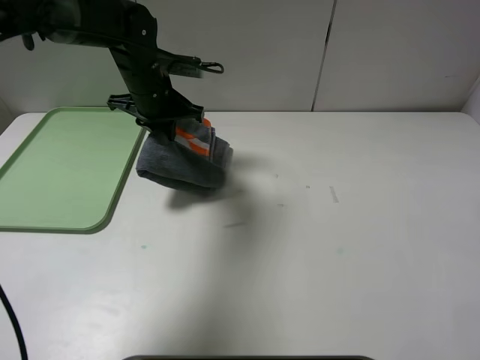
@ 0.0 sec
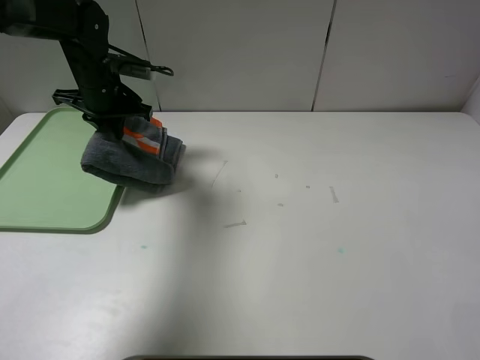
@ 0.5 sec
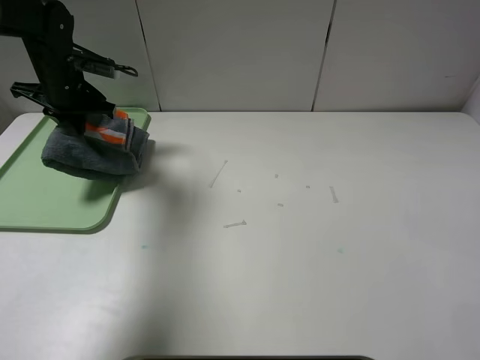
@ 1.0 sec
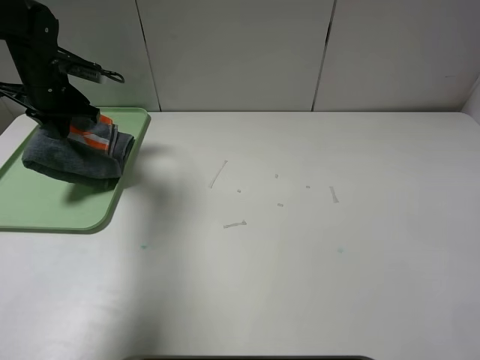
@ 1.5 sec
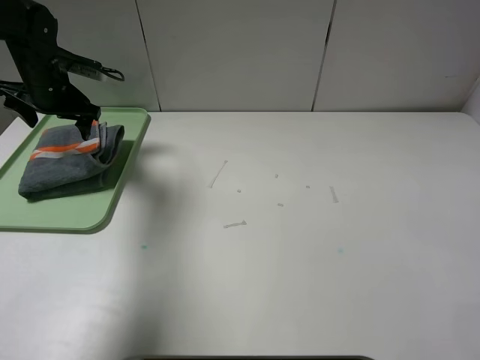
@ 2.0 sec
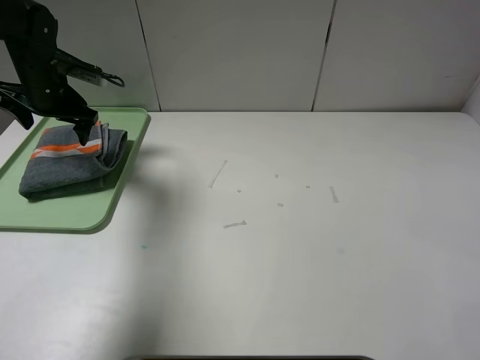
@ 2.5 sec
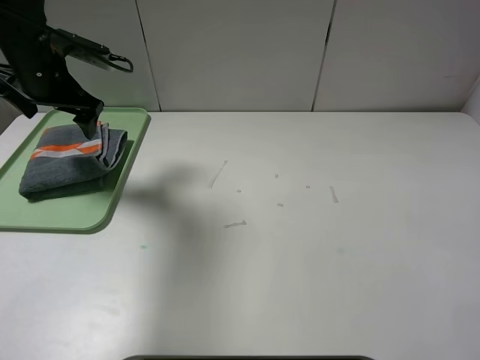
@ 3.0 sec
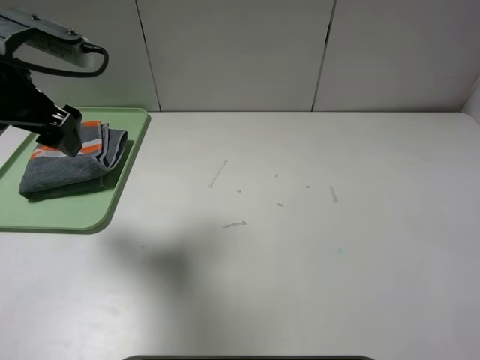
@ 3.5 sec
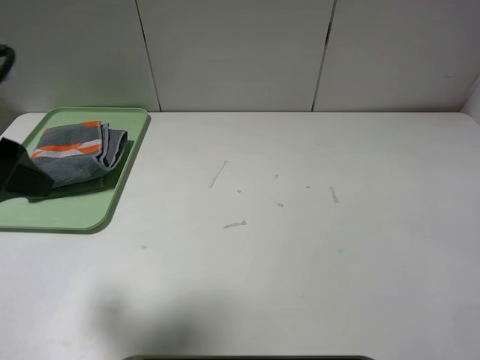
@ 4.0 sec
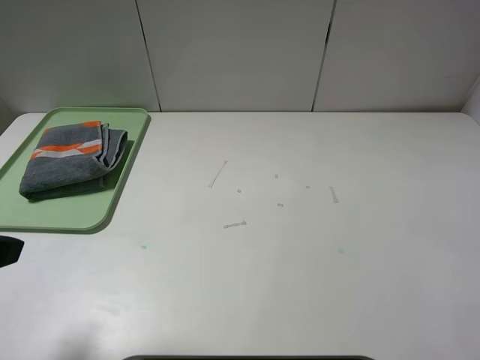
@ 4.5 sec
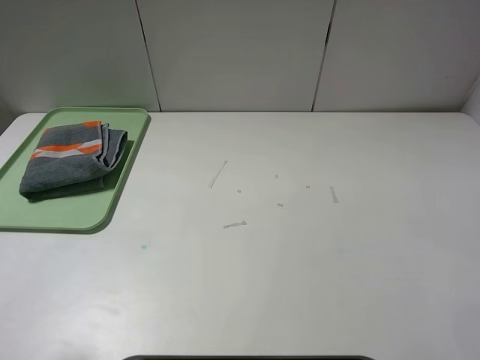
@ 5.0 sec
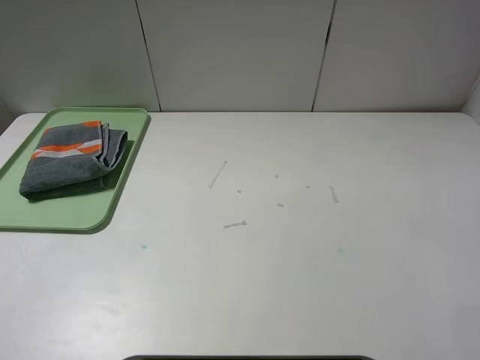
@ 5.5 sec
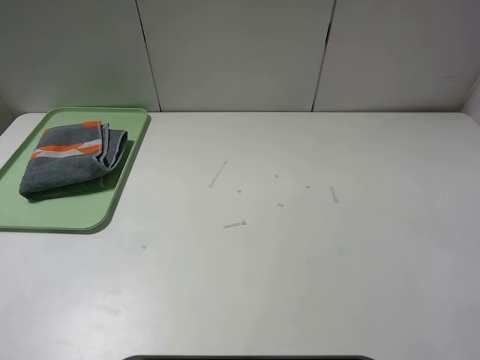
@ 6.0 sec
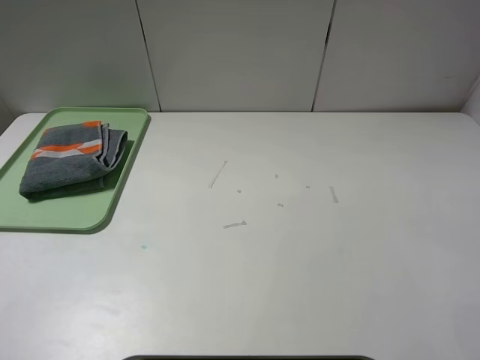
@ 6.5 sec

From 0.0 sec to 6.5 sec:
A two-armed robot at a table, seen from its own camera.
From 0.0 sec to 2.0 sec: The left gripper heads to the left, covering some 15 cm, and opens.
From 2.0 sec to 4.5 sec: The left gripper is displaced backward by some 35 cm.
From 4.5 sec to 6.5 sec: The left gripper travels backward by about 10 cm.
